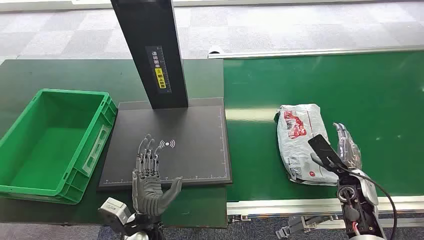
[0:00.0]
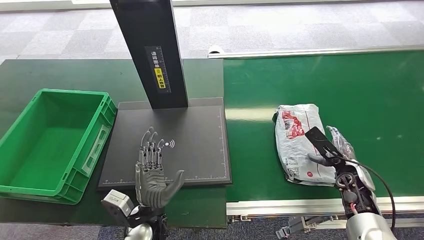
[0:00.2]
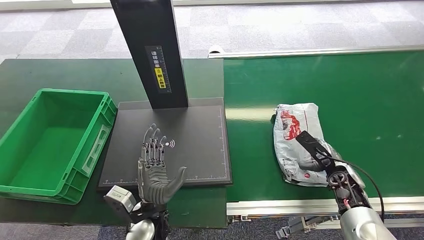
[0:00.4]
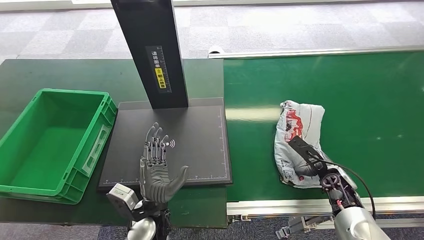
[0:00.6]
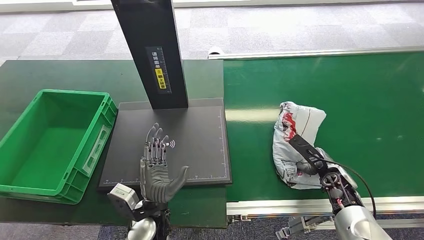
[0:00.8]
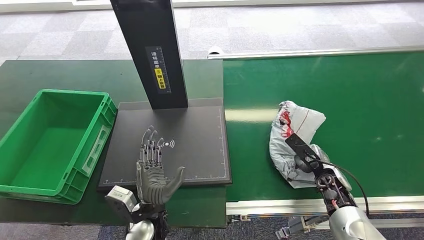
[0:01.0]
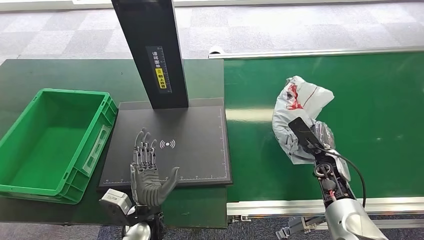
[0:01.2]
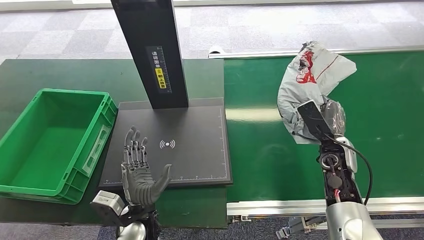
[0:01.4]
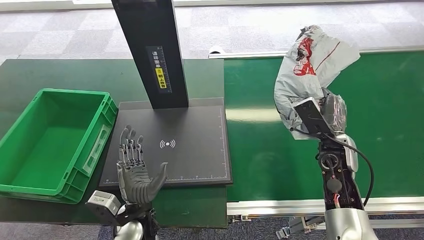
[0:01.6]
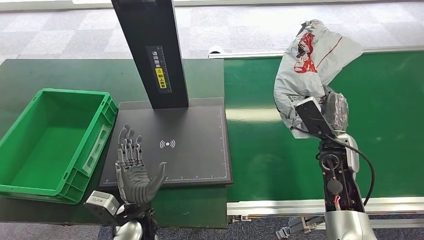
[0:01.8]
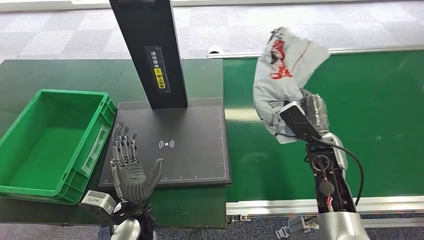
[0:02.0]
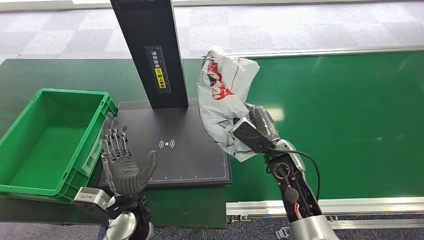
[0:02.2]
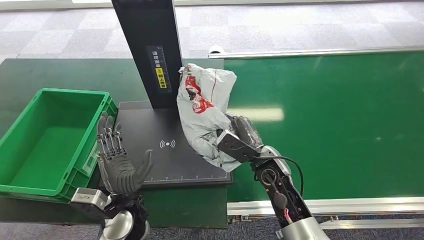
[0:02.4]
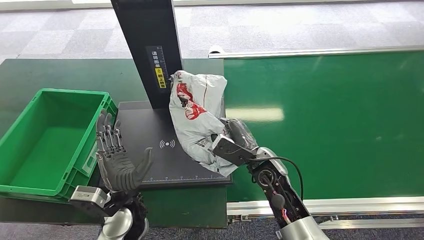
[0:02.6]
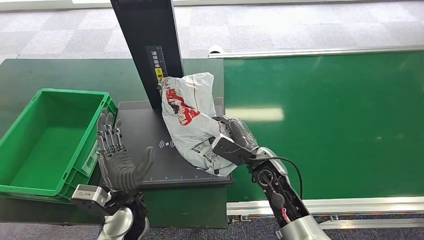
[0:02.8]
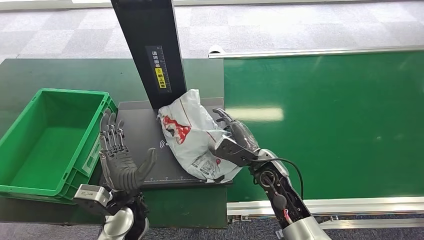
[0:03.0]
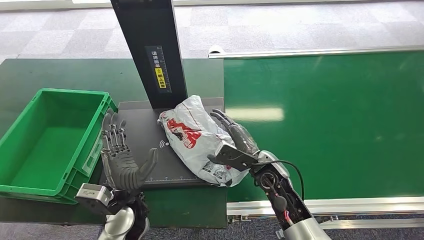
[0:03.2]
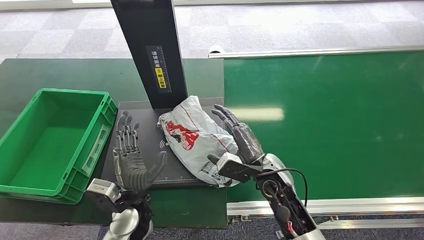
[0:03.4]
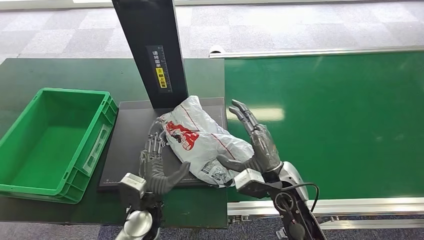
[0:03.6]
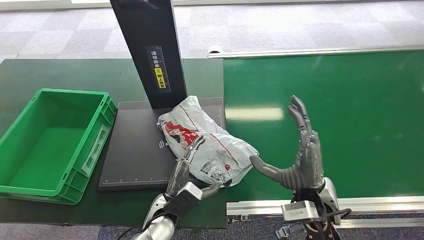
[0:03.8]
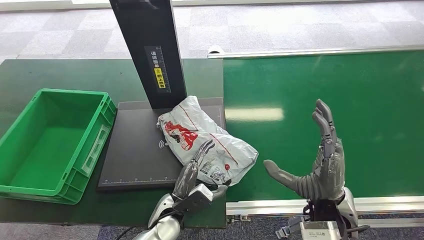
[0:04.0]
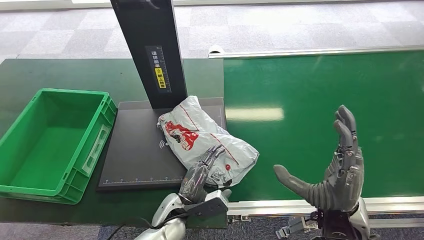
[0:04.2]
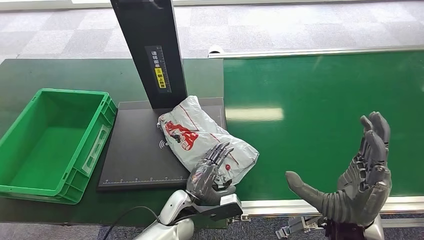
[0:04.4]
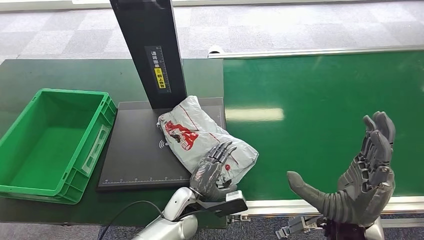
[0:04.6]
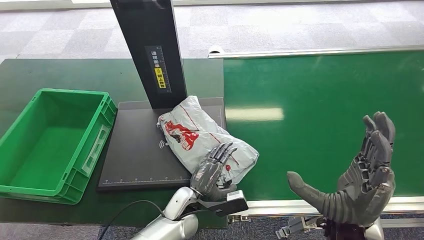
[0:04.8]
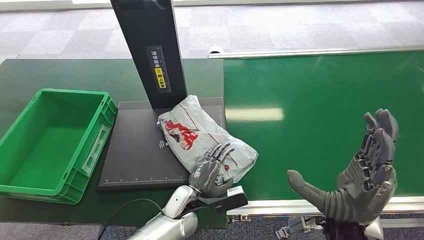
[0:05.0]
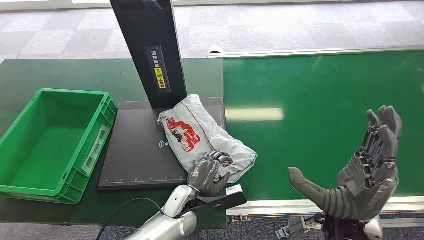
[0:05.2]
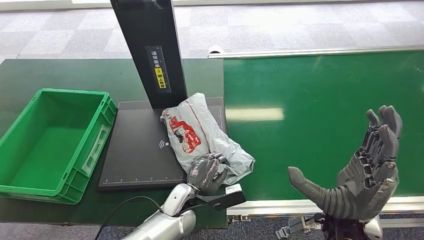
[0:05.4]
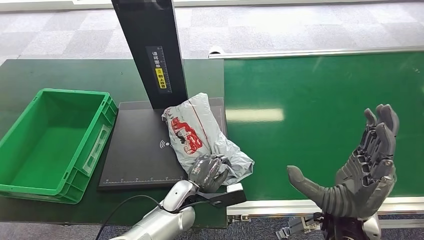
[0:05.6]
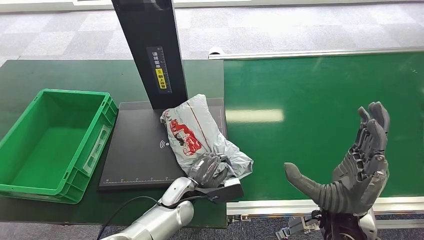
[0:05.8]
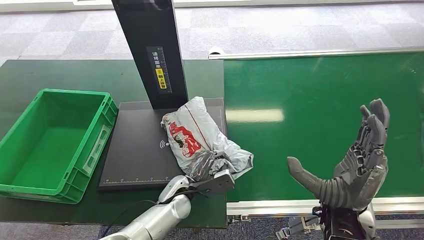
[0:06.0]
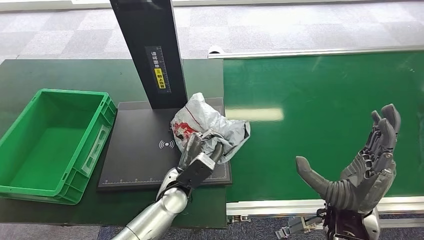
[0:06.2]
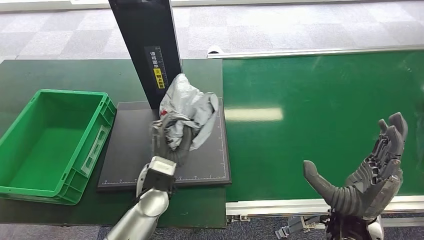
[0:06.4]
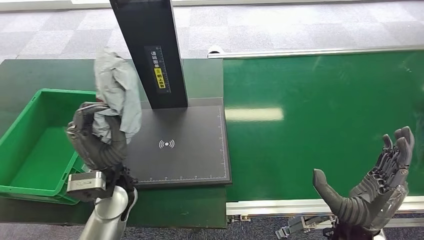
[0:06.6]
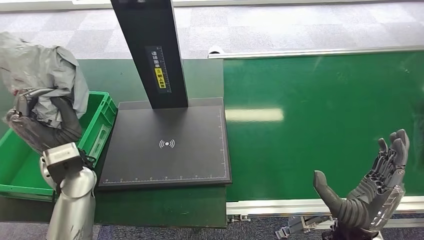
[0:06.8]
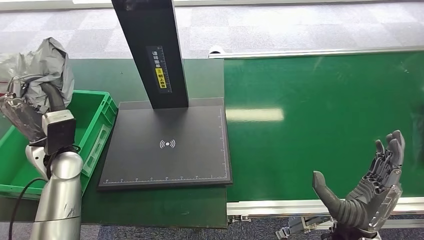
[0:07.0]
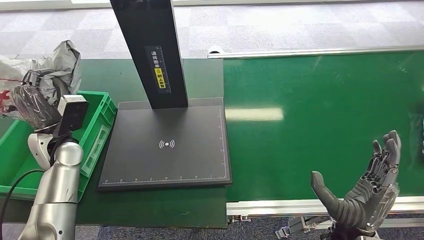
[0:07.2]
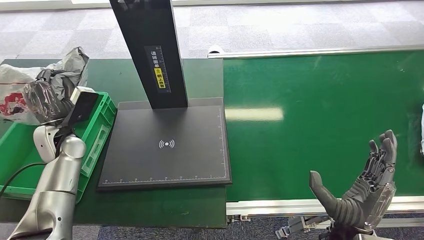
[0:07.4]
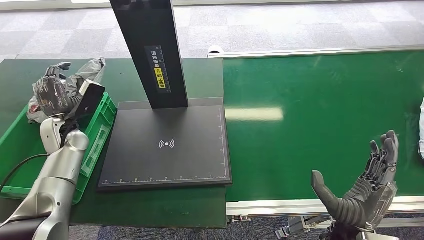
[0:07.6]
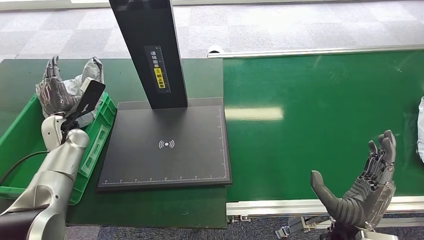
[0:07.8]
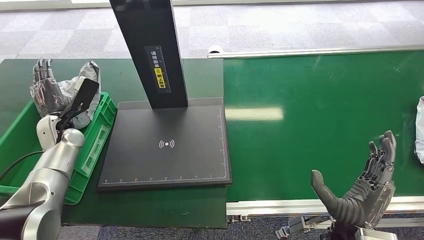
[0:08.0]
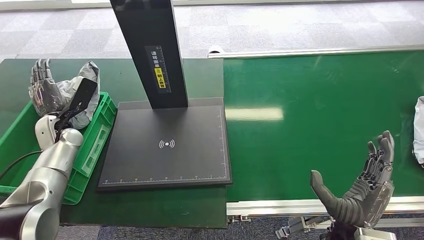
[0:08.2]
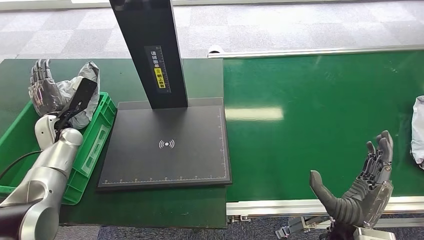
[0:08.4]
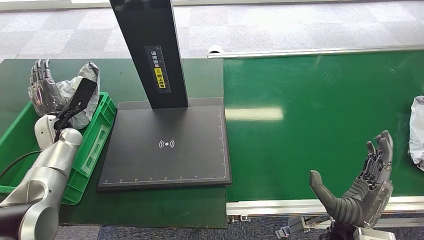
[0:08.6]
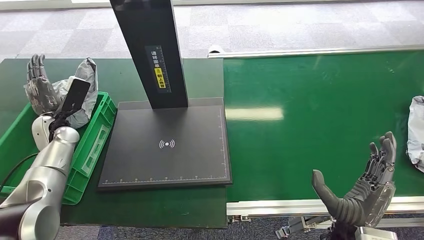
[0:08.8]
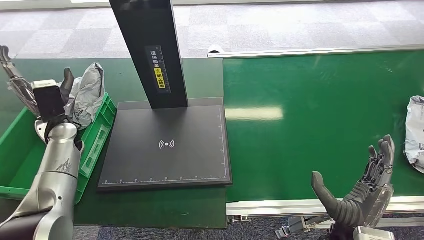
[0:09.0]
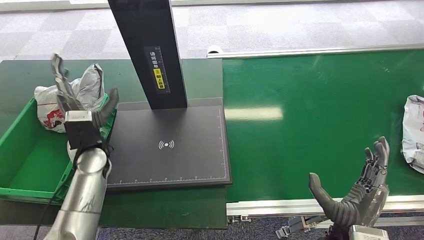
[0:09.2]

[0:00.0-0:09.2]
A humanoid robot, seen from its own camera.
Step, 0:00.0 to 0:01.2: Pick up the package from the conveyor belt.
Step, 0:01.4 to 0:04.0: Place the package onto the inbound machine.
Step, 0:04.2 to 0:06.6: Pick up the package from the inbound machine.
Step, 0:06.8 to 0:09.2: Place the package into the parcel locker.
0:03.0 to 0:04.6: The right hand is displaced backward, upward and to the right by about 20 cm. The left hand shifts approximately 15 cm to the right and downward.
0:04.6 to 0:06.2: The left hand changes place by roughly 5 cm.
0:06.2 to 0:07.6: The left hand heads to the left, covering some 30 cm, while the right hand moves downward, roughly 5 cm.
0:07.6 to 0:09.2: The left hand travels to the right by roughly 10 cm.

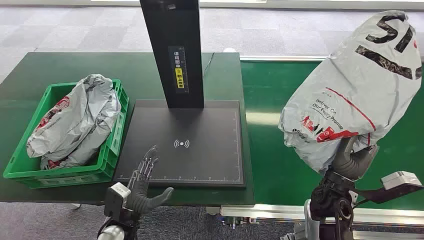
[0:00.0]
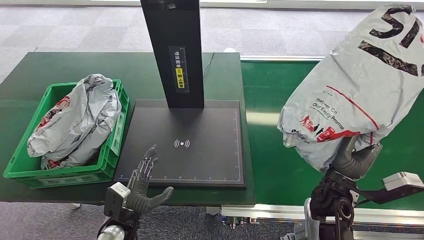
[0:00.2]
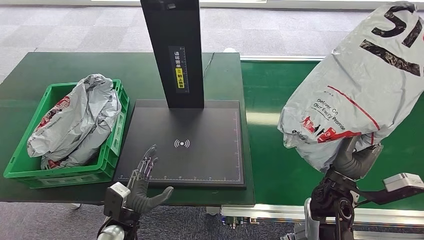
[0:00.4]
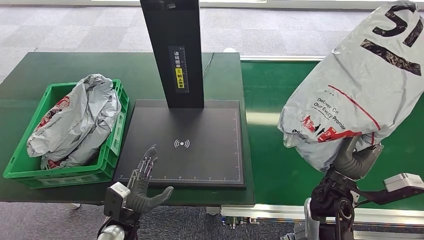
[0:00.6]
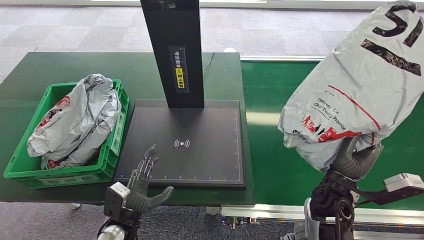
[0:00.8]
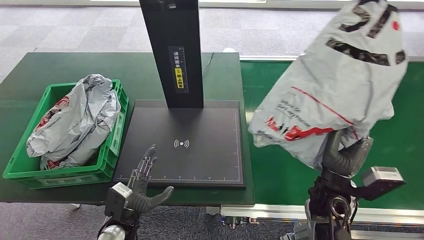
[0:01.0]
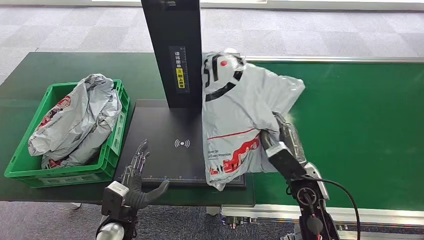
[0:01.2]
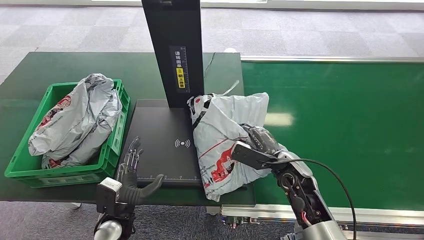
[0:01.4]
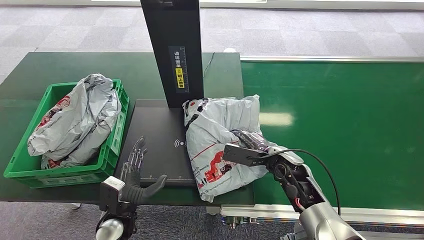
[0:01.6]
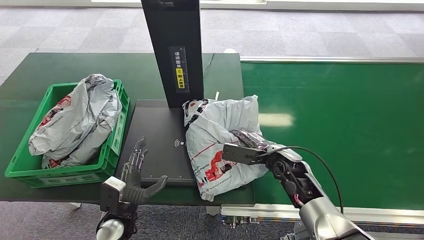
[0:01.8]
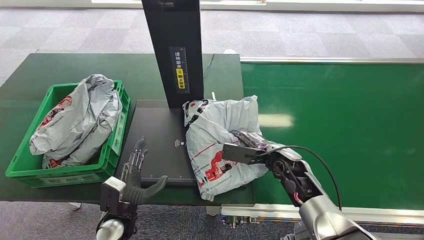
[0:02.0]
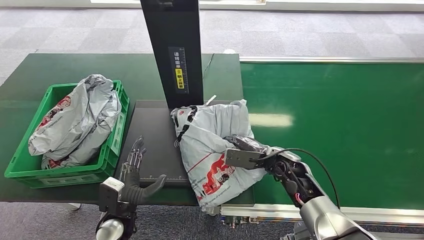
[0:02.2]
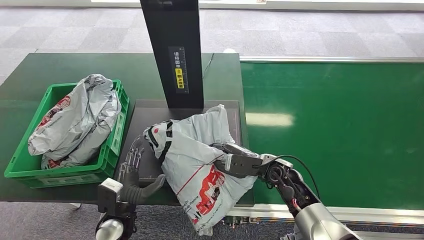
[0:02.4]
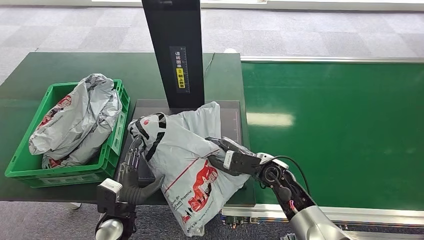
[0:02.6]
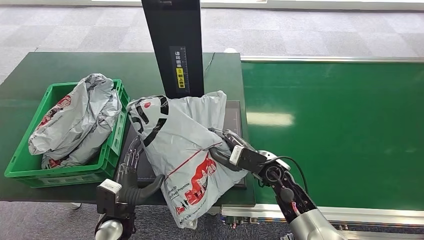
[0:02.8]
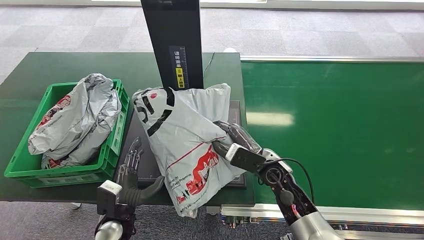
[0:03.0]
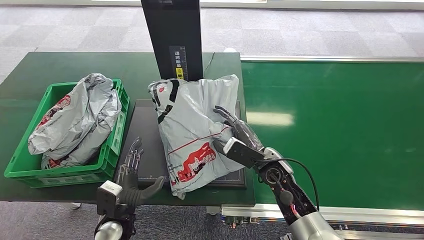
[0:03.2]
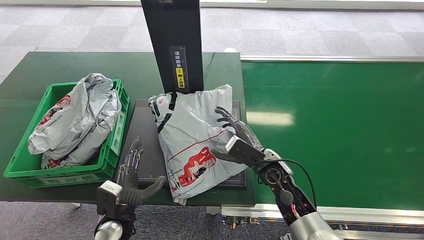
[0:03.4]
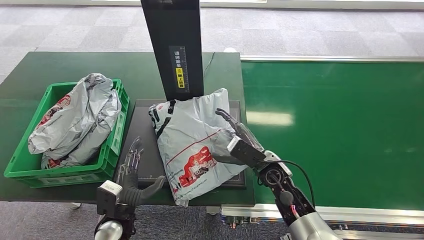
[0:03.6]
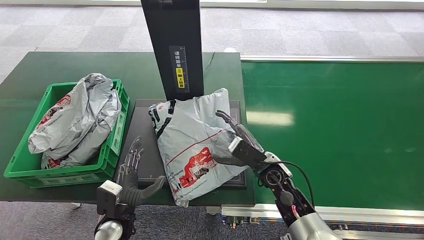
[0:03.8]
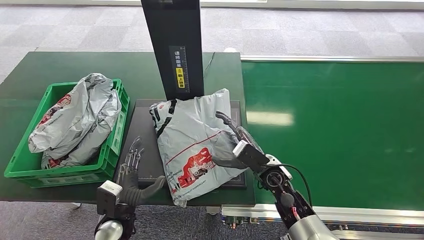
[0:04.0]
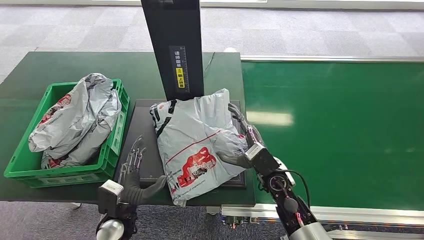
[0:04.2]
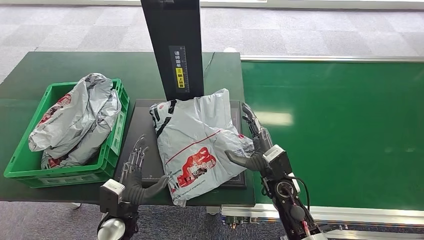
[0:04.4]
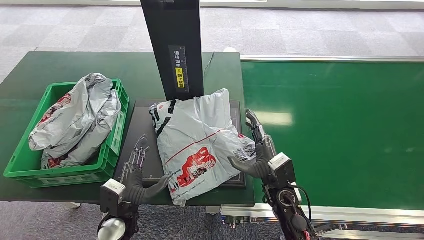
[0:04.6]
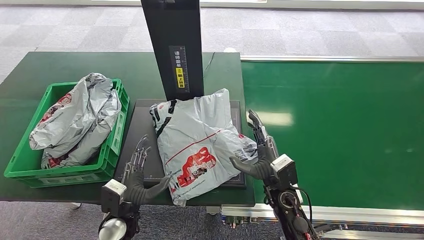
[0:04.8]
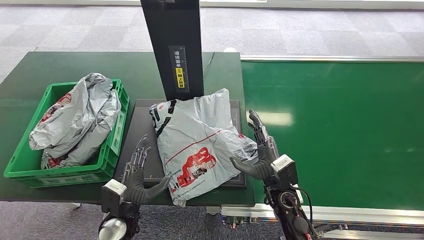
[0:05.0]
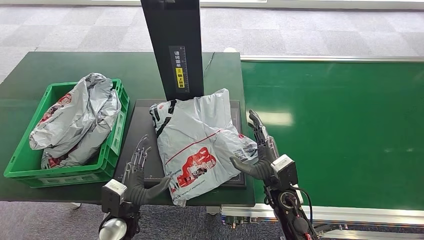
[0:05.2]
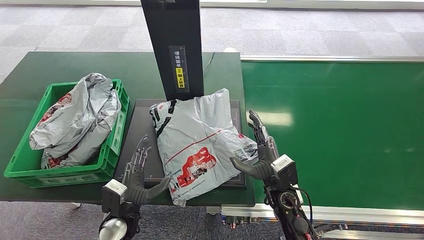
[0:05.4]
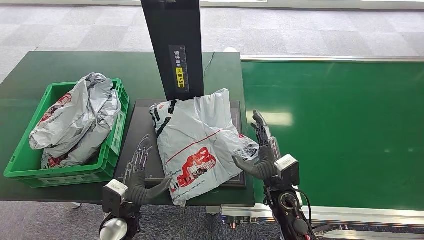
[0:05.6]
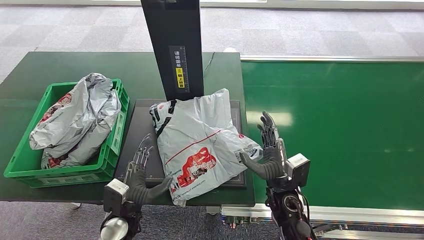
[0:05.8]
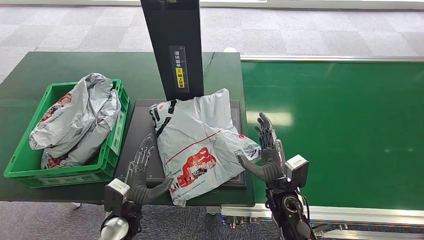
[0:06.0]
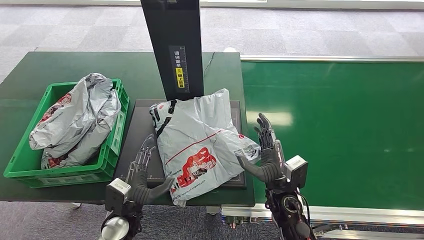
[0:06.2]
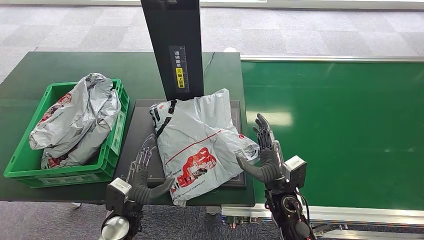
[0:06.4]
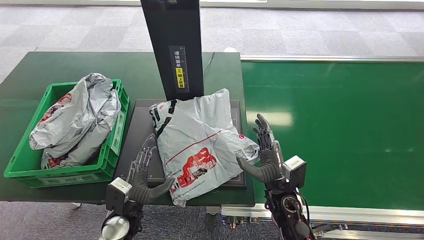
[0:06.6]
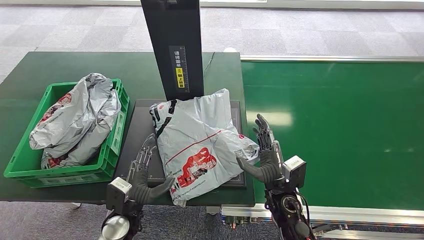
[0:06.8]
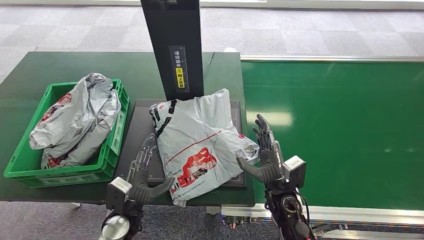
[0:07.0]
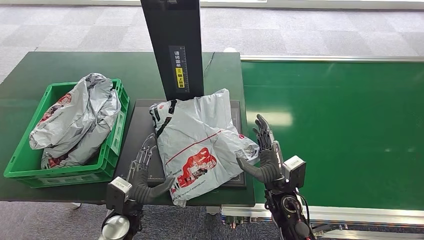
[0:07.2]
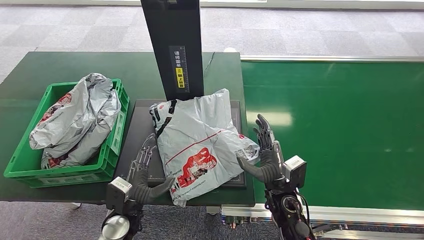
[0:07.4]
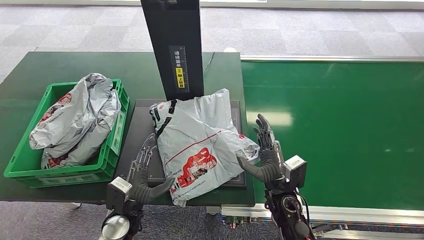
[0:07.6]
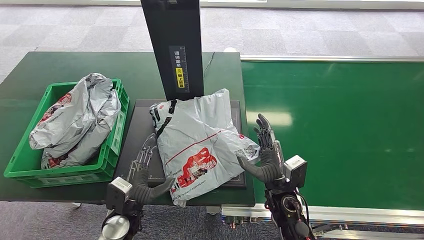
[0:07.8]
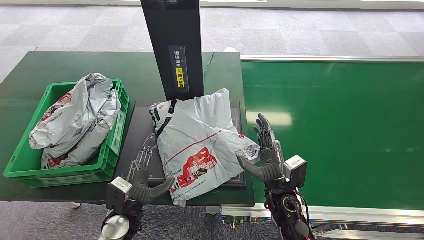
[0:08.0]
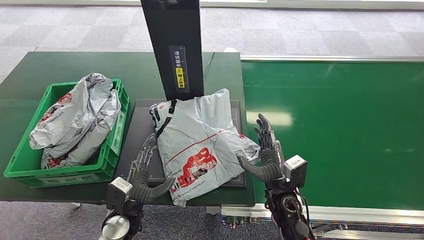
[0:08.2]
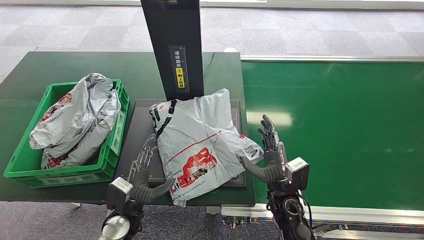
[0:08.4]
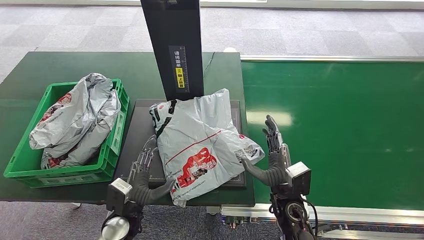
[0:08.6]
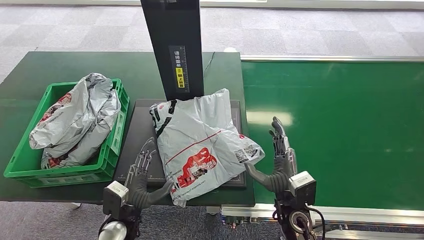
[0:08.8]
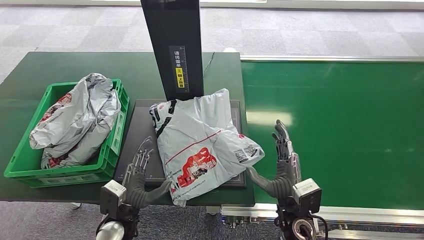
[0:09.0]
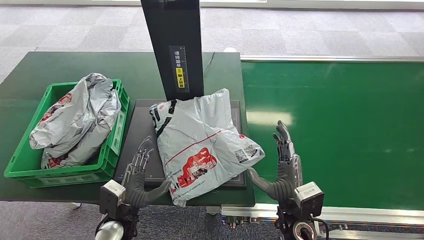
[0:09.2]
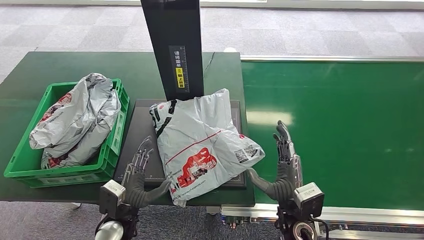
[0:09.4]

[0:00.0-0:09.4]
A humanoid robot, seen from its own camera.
Step, 0:05.0 to 0:06.2: Place the package onto the inbound machine.
0:03.2 to 0:04.8: The right hand travels backward by roughly 5 cm.
0:04.8 to 0:06.2: The hands move only a little.
0:06.2 to 0:07.8: Neither hand changes place.
0:07.8 to 0:09.4: The right hand heads backward, covering approximately 5 cm.
